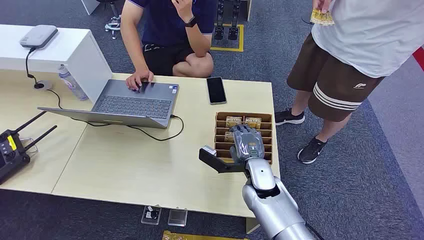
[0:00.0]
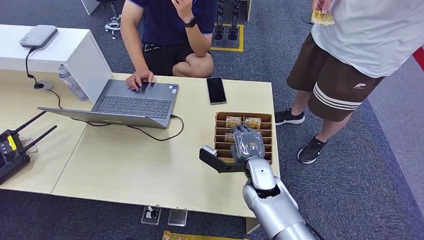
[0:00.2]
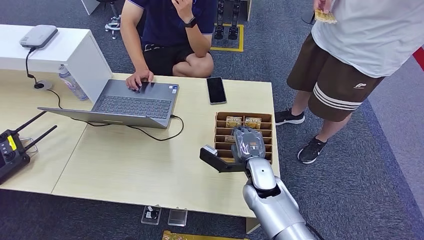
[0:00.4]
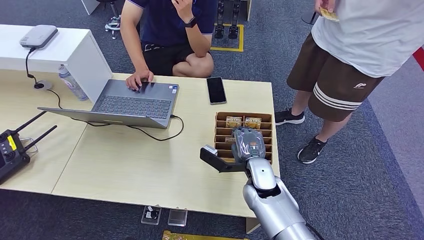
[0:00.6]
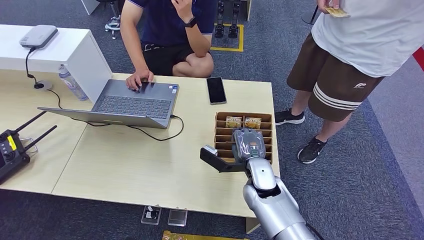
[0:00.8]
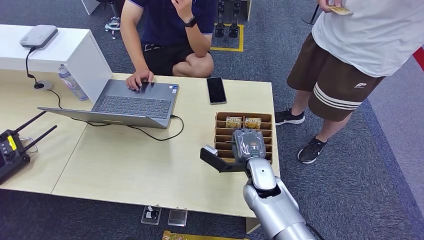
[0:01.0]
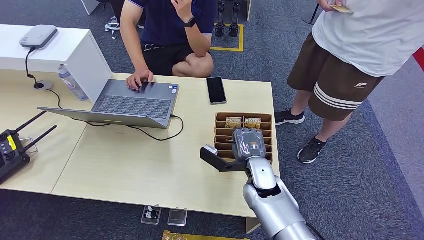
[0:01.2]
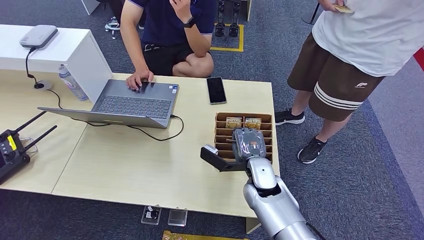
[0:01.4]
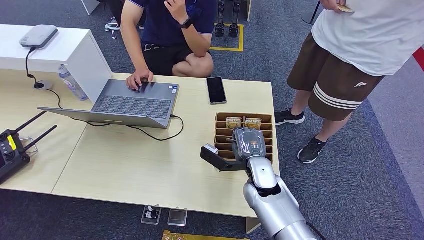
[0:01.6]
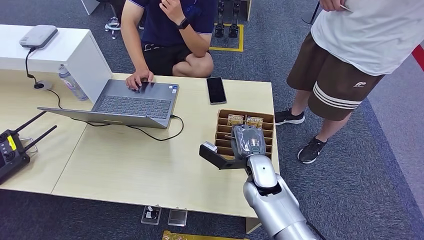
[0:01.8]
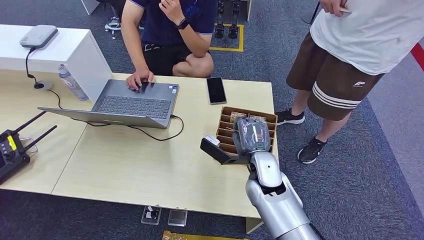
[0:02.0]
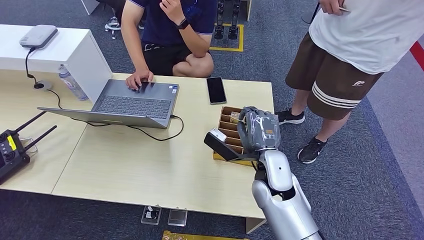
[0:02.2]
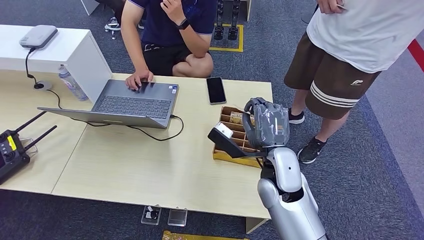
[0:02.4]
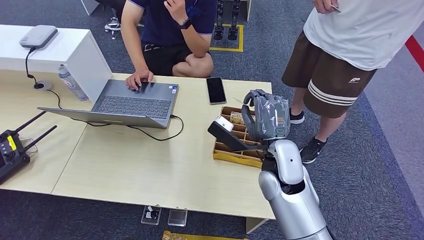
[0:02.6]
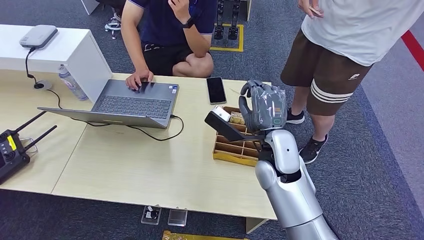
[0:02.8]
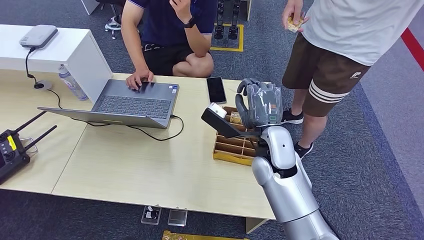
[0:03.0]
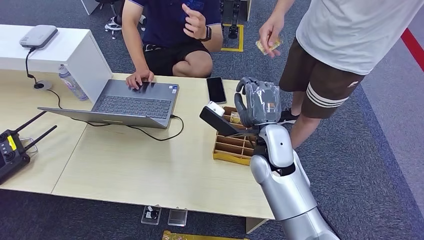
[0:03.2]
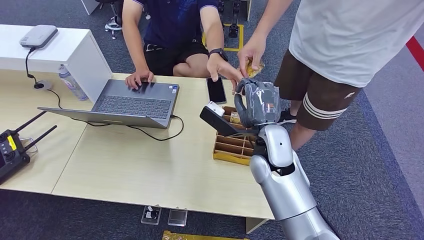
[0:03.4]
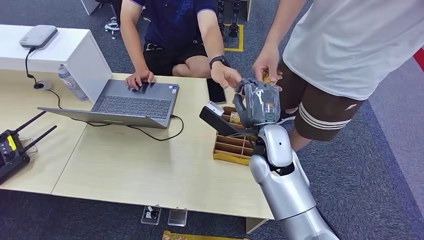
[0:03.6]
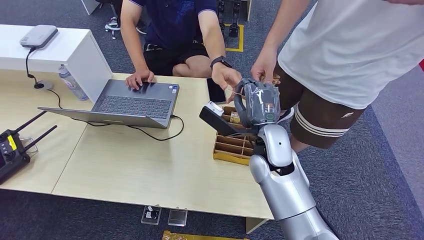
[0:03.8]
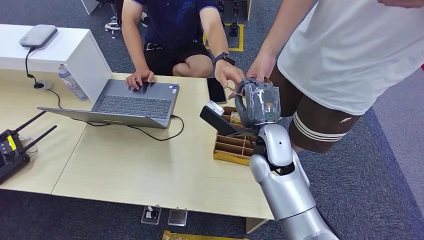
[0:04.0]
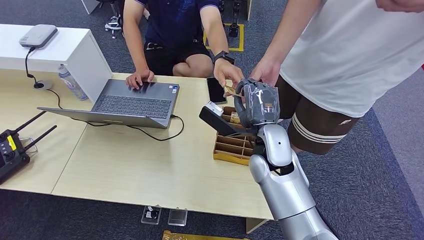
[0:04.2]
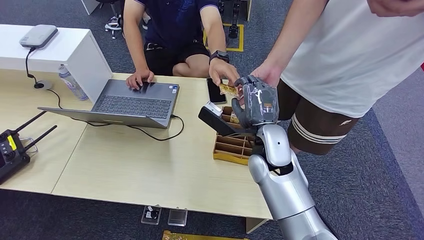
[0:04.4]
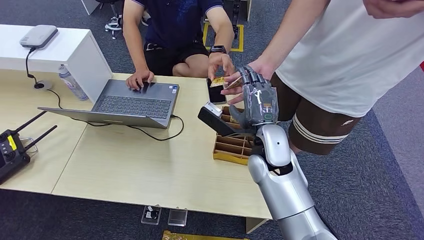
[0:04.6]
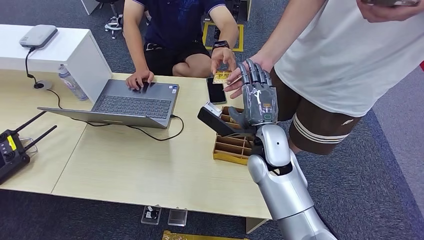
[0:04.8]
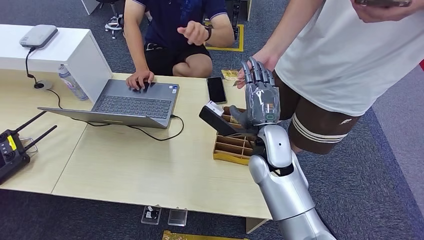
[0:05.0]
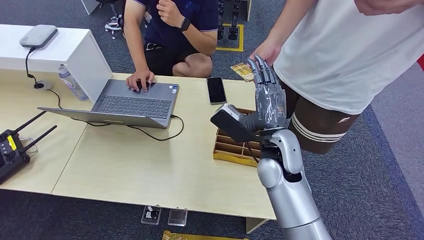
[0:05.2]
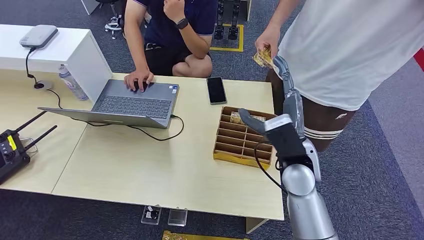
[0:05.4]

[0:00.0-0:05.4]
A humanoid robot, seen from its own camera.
Step, 0:00.0 to 0:02.0: Pick up the room card from the card holder.
Step, 0:02.2 to 0:05.2: Hand the room card to the target.
0:01.4 to 0:02.8: The right hand heads upward, covering approximately 10 cm.
0:04.0 to 0:05.4: The right hand moves to the right, roughly 5 cm.

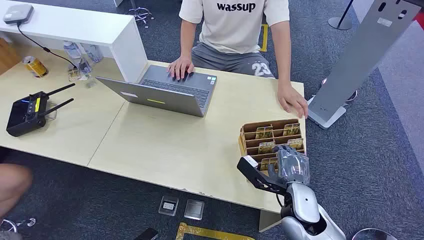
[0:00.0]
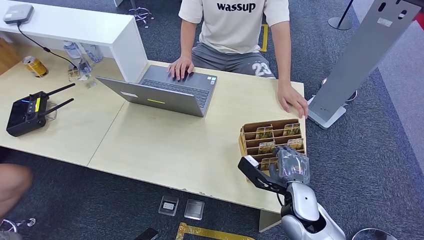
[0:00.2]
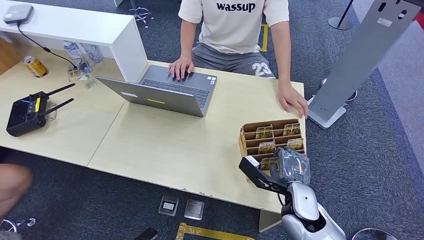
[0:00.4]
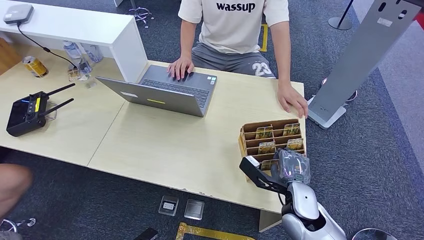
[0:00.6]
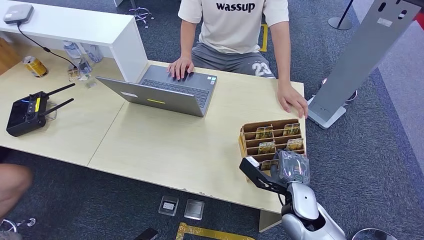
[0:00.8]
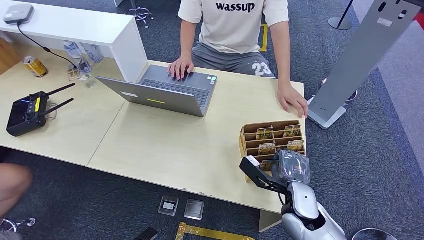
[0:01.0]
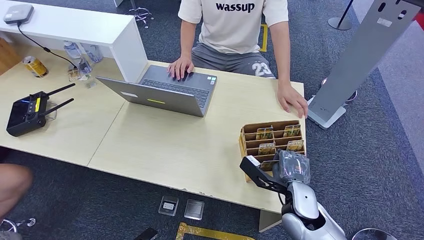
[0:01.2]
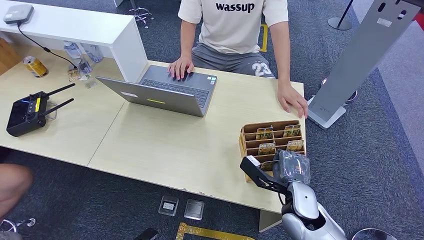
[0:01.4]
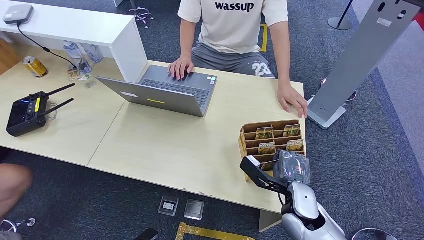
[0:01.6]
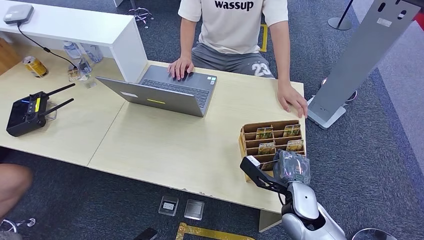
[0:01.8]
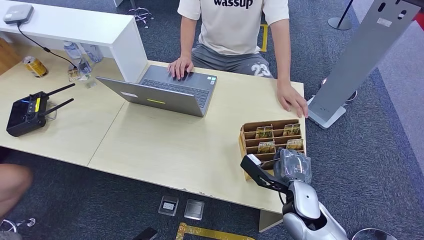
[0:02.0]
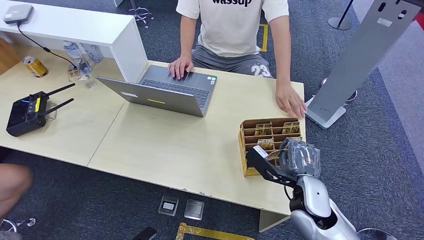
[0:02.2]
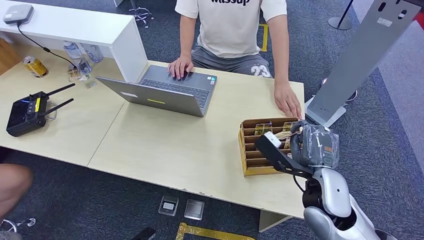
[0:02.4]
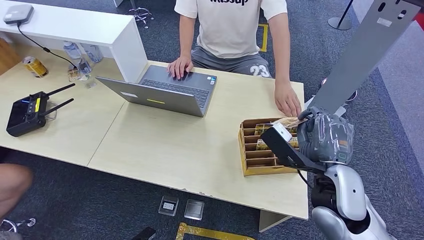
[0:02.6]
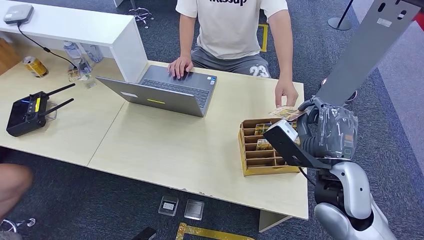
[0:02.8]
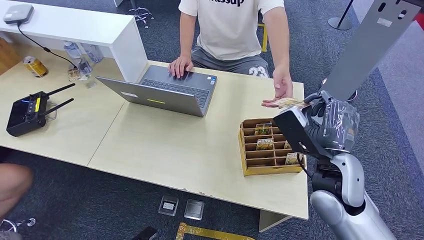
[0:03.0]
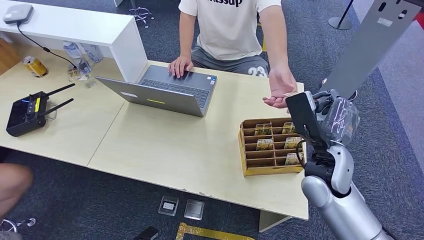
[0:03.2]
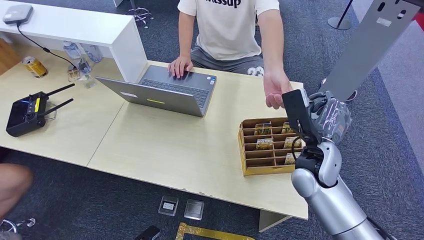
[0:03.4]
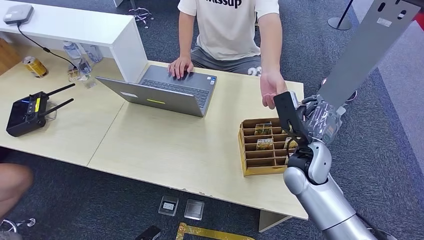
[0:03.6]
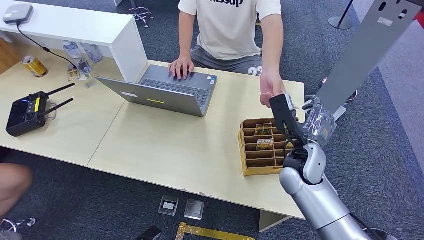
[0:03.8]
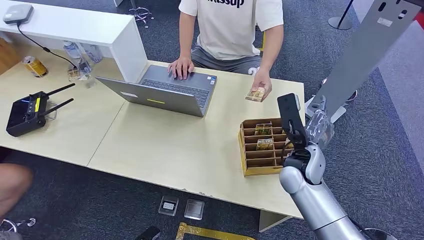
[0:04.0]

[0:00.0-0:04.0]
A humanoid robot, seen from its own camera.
Step, 0:00.0 to 0:02.2: Pick up the room card from the card holder.
Step, 0:02.8 to 0:03.8: Hand the room card to the target.
0:01.4 to 0:02.6: The right hand goes some 15 cm upward.
0:02.6 to 0:04.0: The right hand is displaced downward by roughly 5 cm.

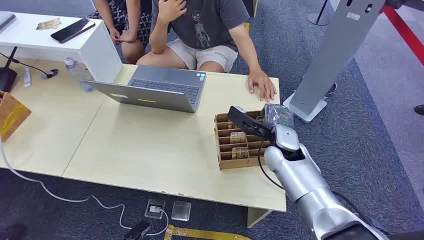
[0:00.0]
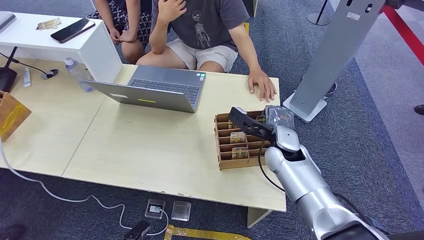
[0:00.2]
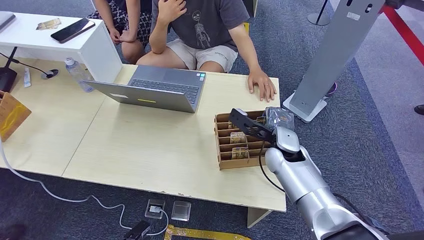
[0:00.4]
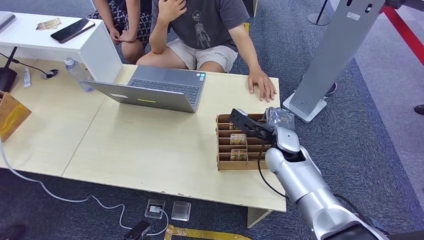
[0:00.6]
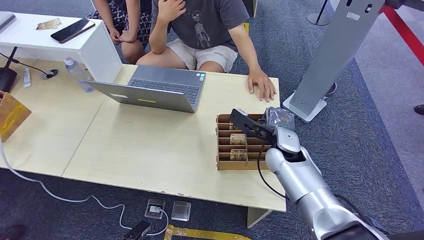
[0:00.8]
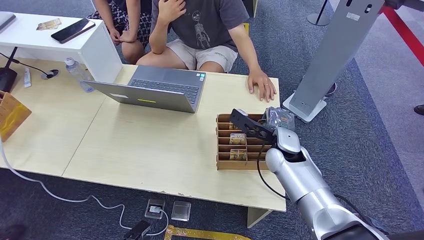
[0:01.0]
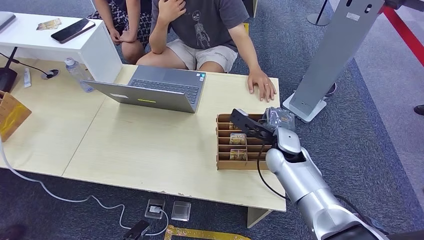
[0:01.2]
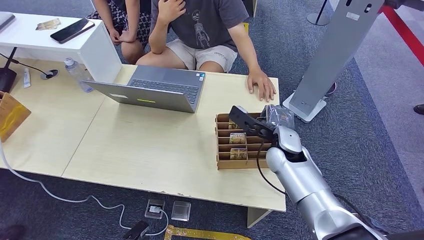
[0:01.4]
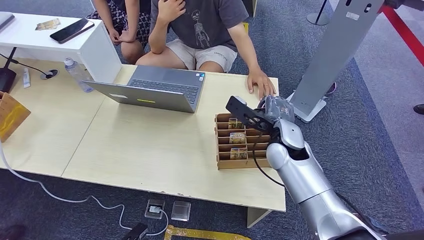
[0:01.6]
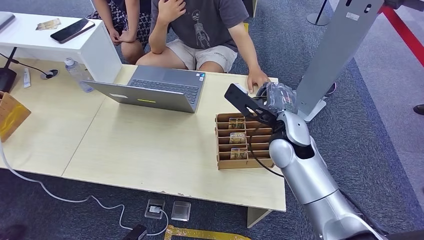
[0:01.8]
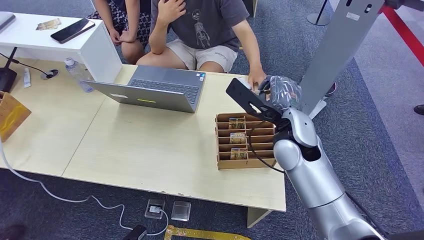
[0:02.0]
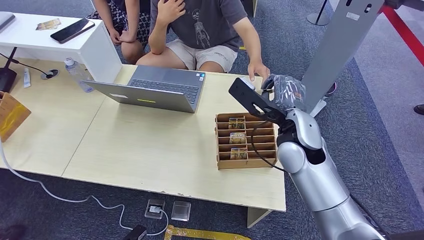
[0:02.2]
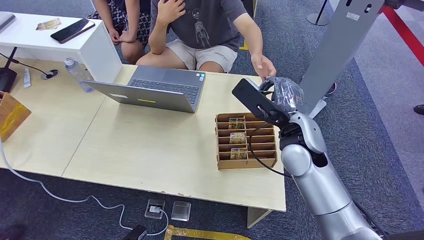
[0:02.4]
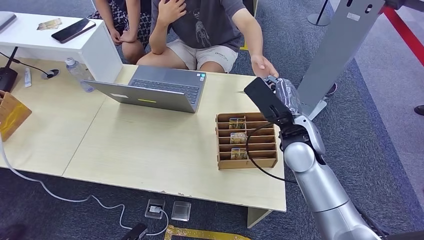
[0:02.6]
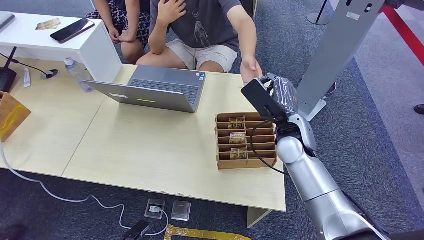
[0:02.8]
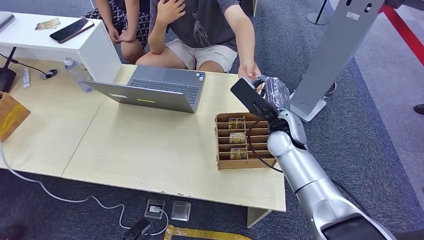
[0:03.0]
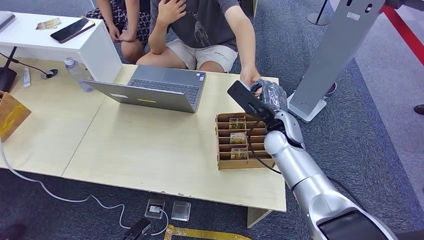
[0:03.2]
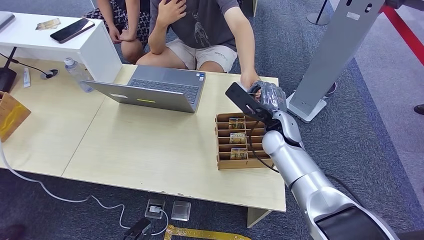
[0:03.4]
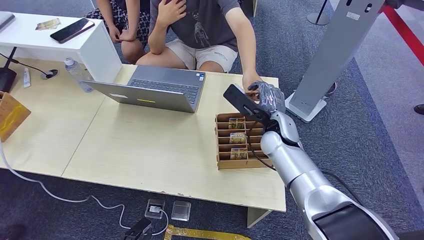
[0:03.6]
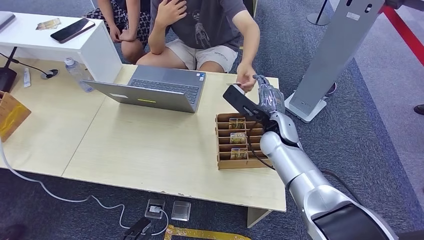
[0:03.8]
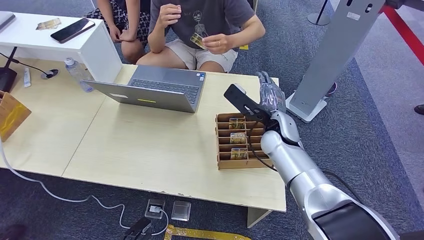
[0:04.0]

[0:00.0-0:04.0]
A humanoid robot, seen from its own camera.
Step, 0:00.0 to 0:02.2: Pick up the room card from the card holder.
Step, 0:02.4 to 0:04.0: Hand the room card to the target.
0:01.4 to 0:02.6: The right hand travels upward by roughly 5 cm.
0:02.6 to 0:04.0: The right hand is displaced forward by about 5 cm.

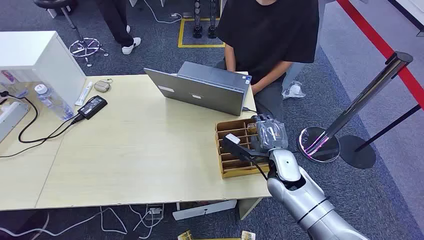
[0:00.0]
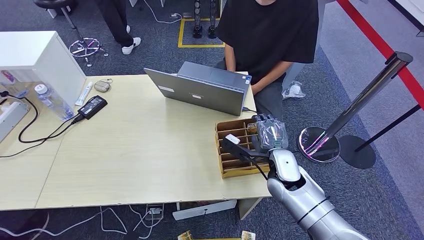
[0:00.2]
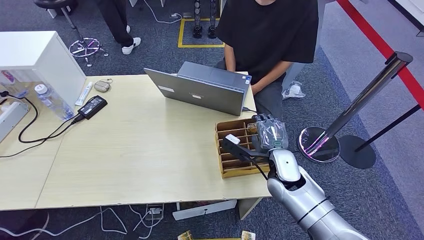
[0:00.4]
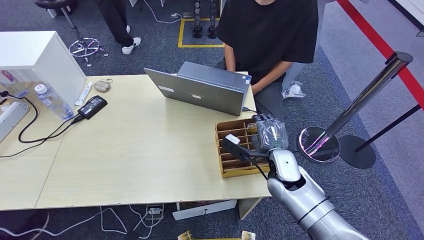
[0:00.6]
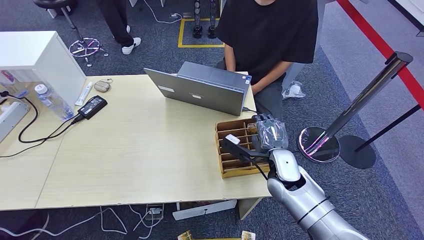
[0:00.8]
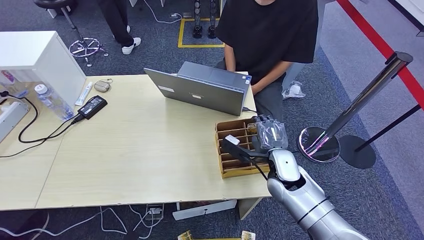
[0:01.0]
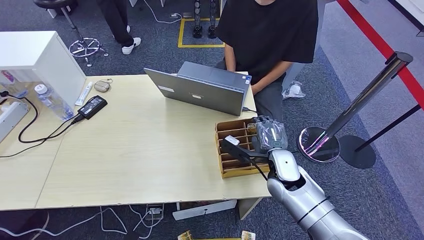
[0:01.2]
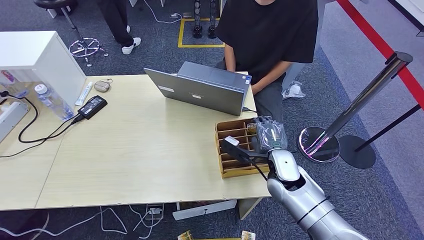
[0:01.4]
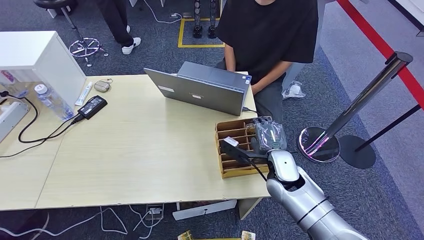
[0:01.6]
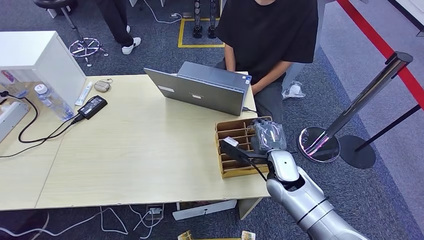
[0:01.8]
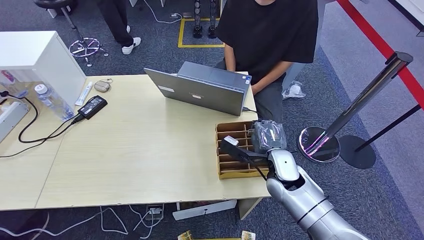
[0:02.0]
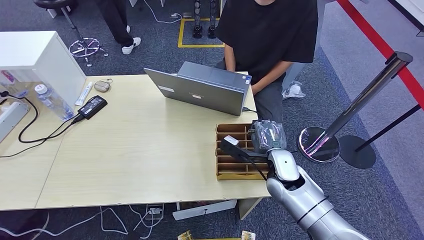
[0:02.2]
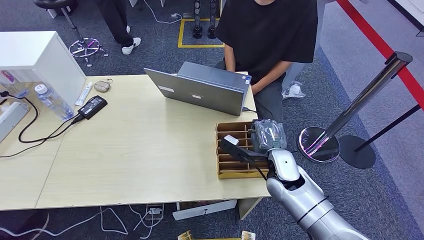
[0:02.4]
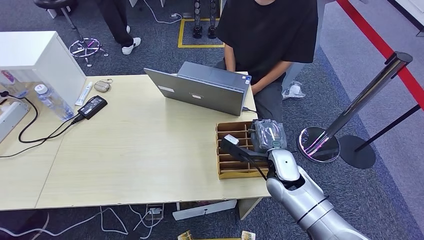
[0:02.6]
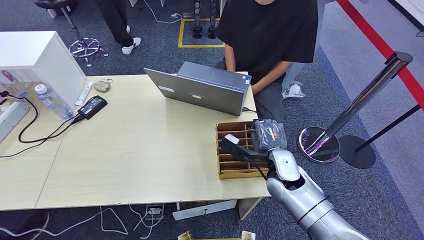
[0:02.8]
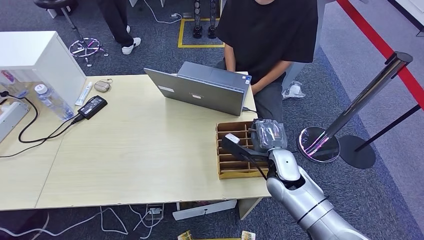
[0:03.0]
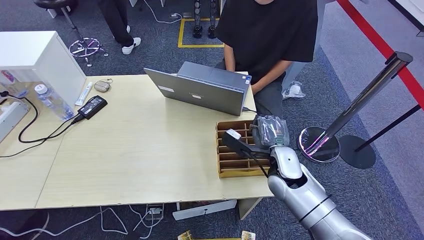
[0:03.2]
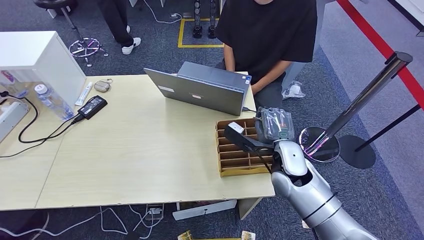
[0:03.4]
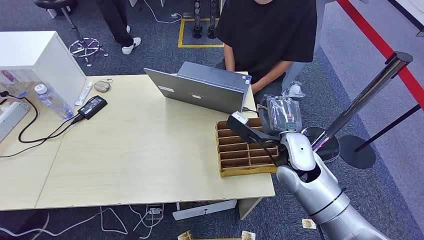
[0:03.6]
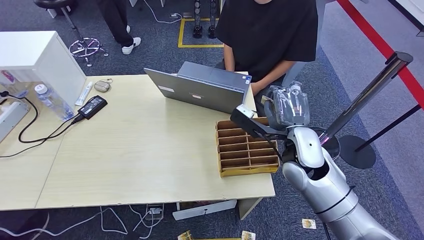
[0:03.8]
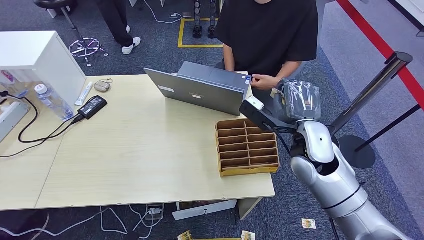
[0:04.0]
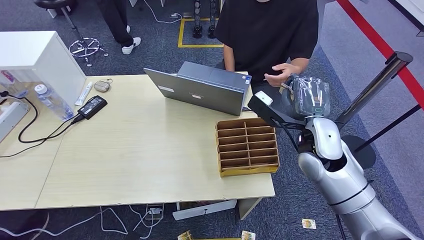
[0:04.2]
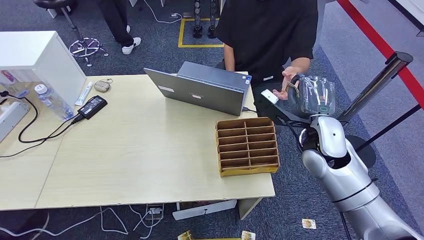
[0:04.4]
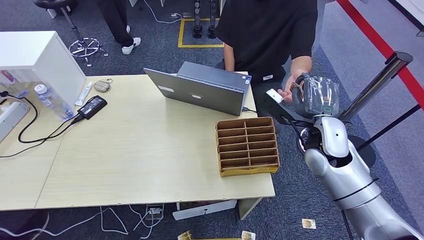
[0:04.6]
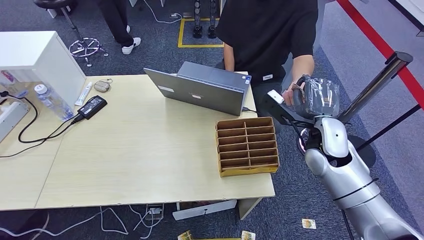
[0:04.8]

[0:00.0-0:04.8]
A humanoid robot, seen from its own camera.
Step, 0:00.0 to 0:03.8: Pick up the room card from the card holder.
0:01.6 to 0:03.2: The hands stay close to where they were, moving slightly.
0:03.2 to 0:04.8: The right hand goes roughly 10 cm upward and to the right.
